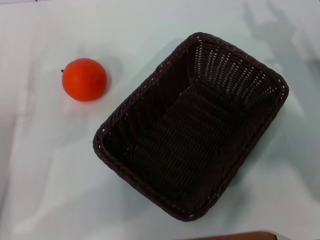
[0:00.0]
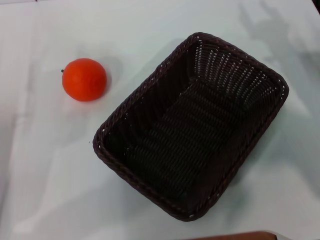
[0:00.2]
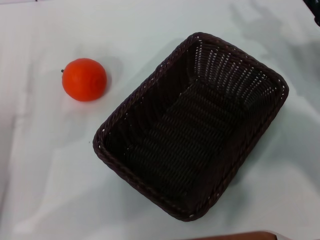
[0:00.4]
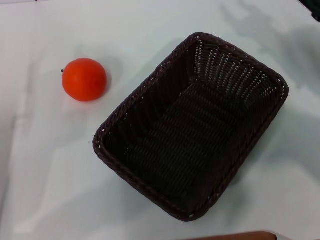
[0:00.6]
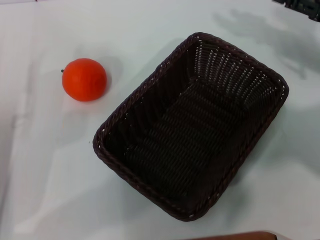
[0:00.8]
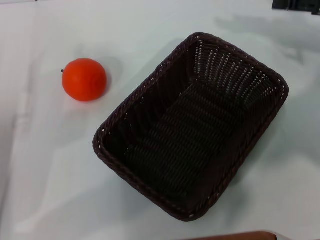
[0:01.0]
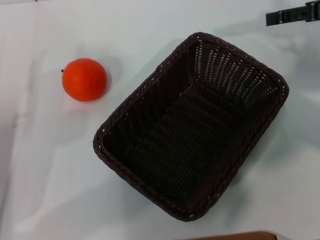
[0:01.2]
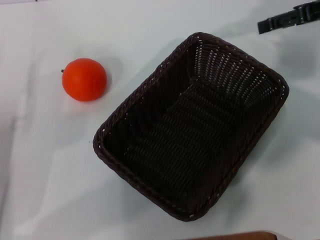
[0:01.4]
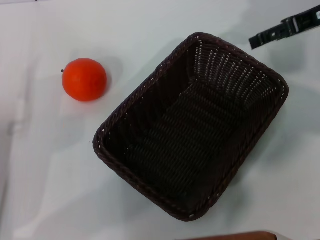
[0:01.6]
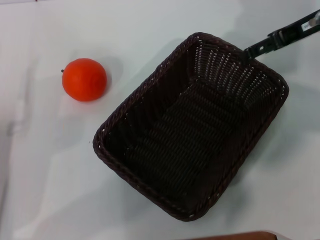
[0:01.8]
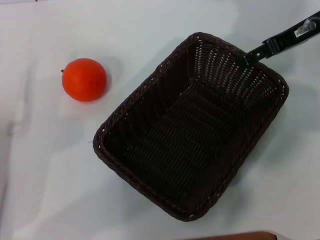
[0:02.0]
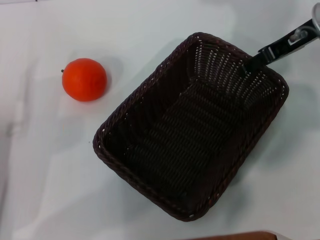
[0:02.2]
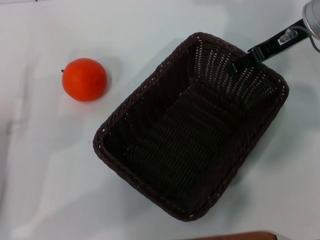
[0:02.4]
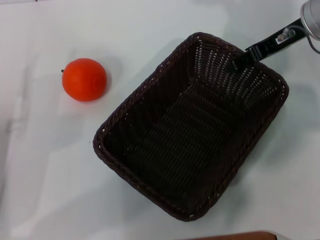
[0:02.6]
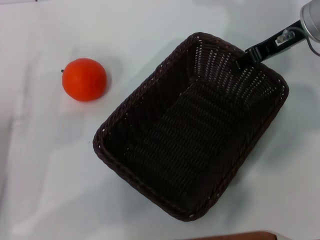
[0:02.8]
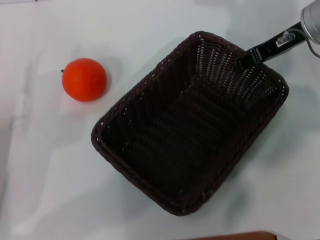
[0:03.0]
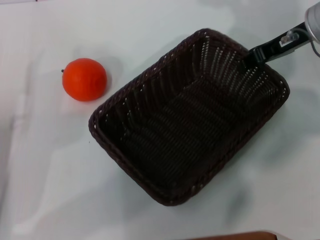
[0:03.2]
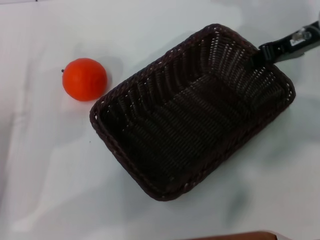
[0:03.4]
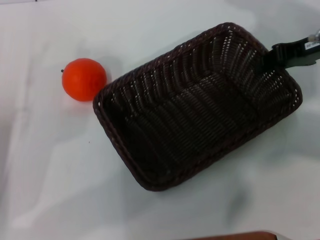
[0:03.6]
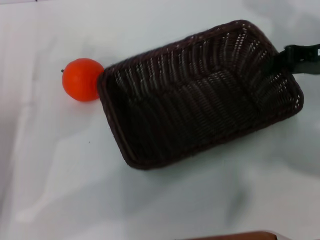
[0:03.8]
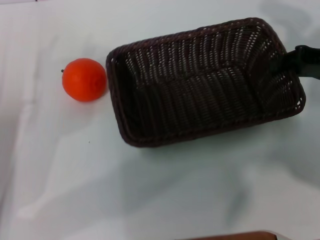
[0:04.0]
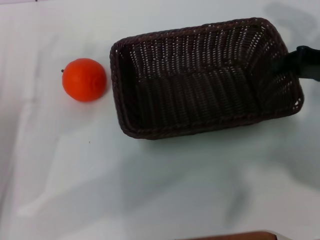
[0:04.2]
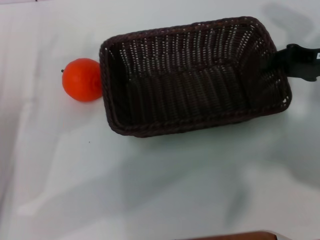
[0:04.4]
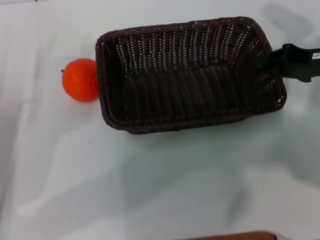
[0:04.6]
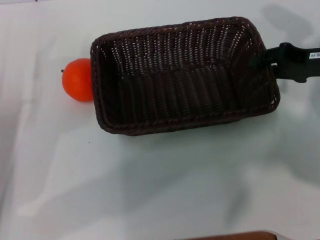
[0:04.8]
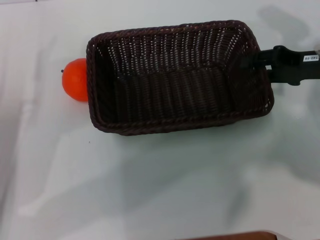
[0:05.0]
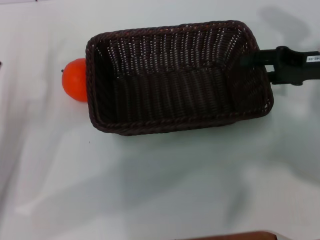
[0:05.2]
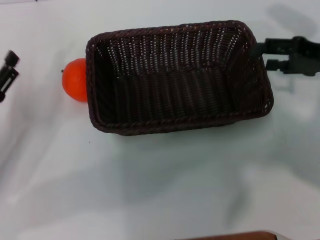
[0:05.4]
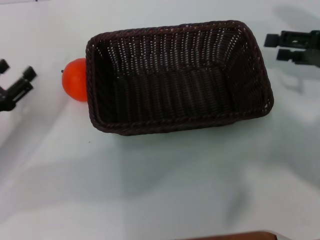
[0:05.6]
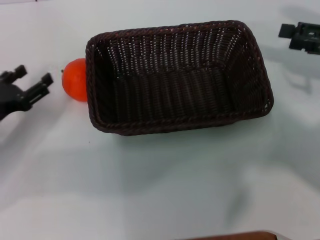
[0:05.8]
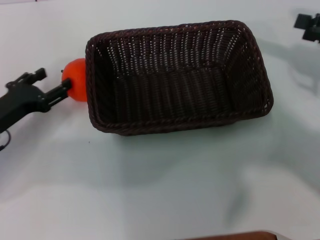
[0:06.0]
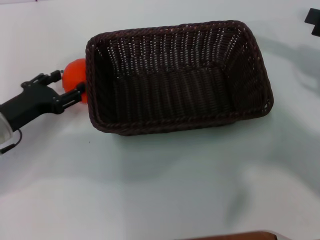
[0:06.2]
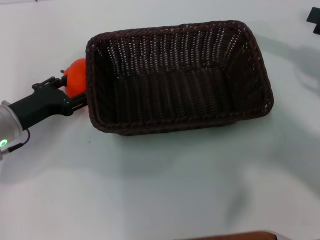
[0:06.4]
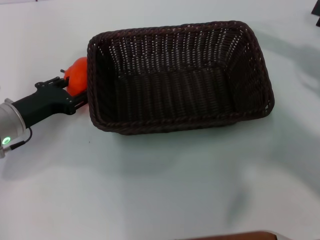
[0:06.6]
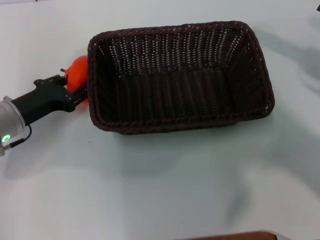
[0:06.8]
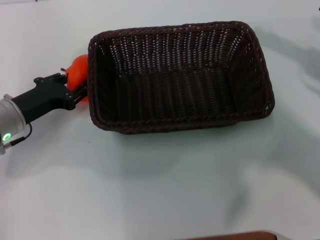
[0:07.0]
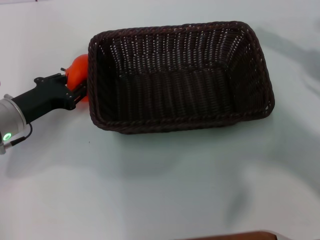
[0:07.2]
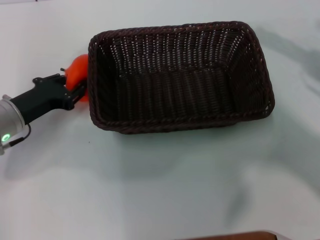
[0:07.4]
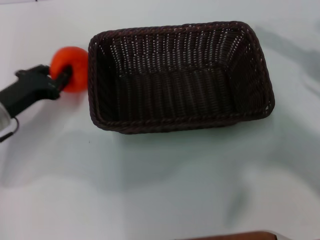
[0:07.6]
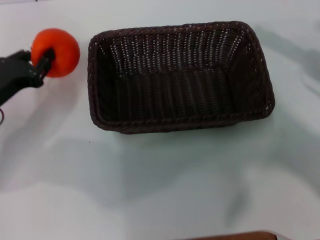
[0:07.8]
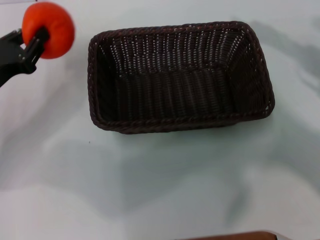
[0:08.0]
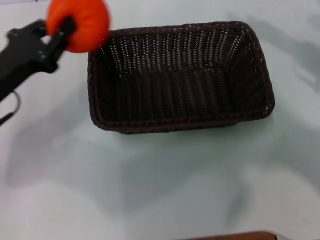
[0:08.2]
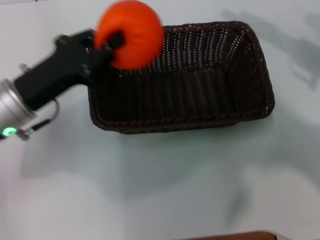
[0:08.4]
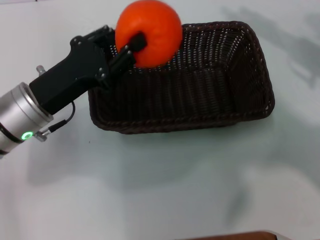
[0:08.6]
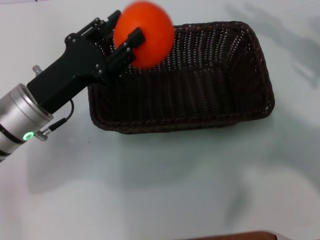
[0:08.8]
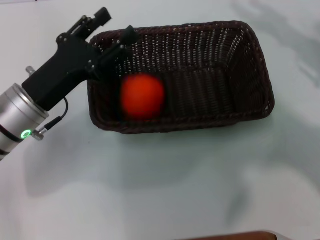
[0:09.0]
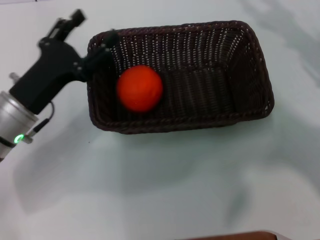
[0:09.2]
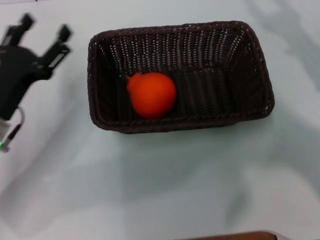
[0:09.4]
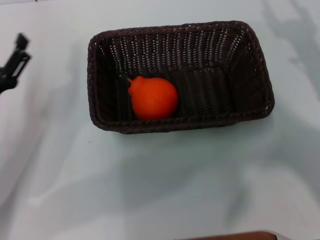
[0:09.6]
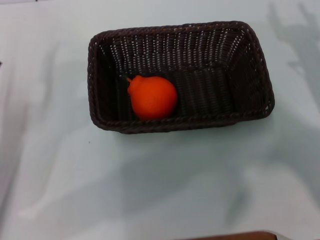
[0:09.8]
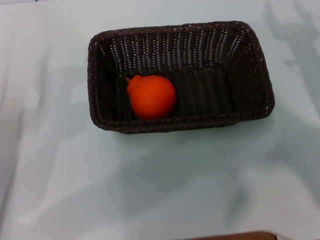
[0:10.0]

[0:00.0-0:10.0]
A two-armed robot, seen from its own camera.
Task of the whole recording: the right gripper pick up the black basket and place it horizontally in the middle of the table, the left gripper pick up the orange and place it into the black basket.
Step, 0:00.0 to 0:03.2: Pick up the dark basket with the right gripper.
Step, 0:03.6 to 0:05.2: Place the dark basket in the center of view with the right gripper.
Step, 0:05.4 to 0:07.6: Pick up the orange with the left gripper.
Step, 0:07.8 to 0:08.8: Place the orange into the dark basket with the left gripper.
0:00.0 to 0:01.4: The right gripper goes about 20 cm upward and forward.
0:01.4 to 0:02.8: The right gripper travels to the left by roughly 5 cm, and closes.
0:02.8 to 0:04.2: The right gripper heads to the right and backward, covering about 10 cm.
0:04.2 to 0:05.8: The right gripper opens its fingers.
0:05.8 to 0:07.2: The left gripper is displaced to the right by about 5 cm, and closes.
0:07.2 to 0:08.6: The left gripper goes approximately 10 cm to the right and upward.
0:08.6 to 0:10.0: The left gripper heads to the left, downward and backward, covering about 15 cm, and opens its fingers, while the right gripper travels downward by about 10 cm.

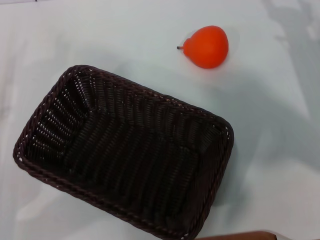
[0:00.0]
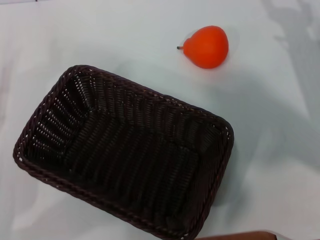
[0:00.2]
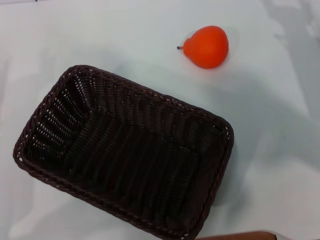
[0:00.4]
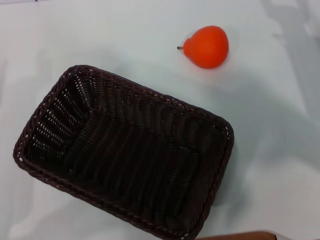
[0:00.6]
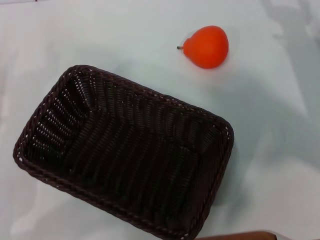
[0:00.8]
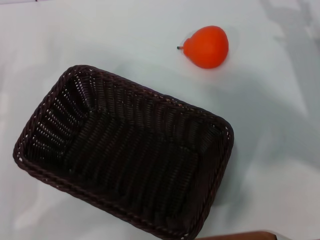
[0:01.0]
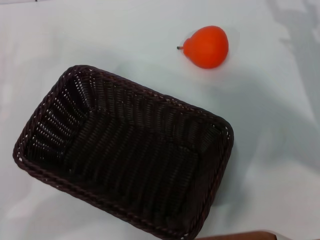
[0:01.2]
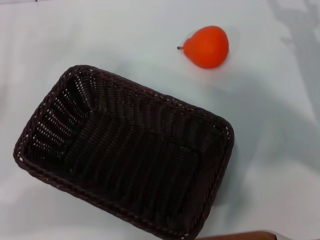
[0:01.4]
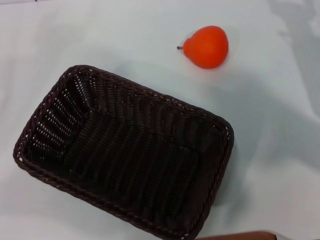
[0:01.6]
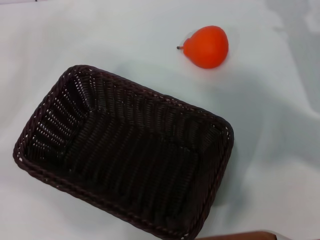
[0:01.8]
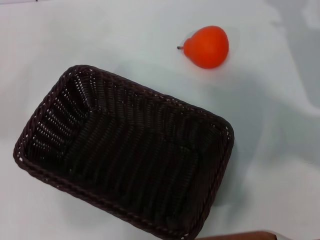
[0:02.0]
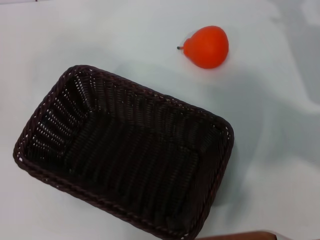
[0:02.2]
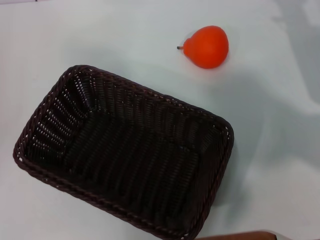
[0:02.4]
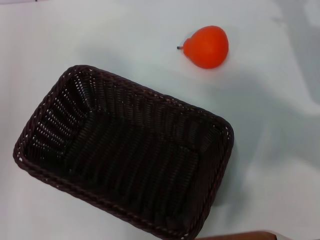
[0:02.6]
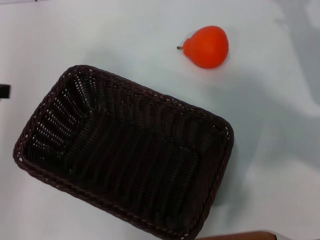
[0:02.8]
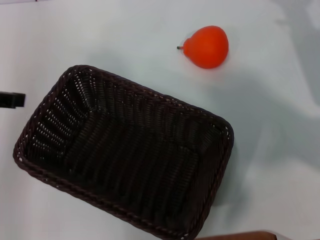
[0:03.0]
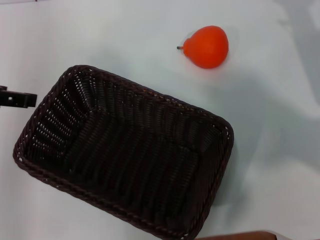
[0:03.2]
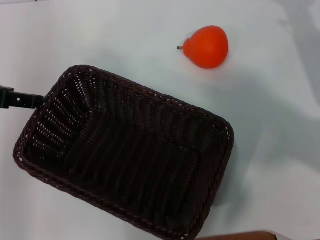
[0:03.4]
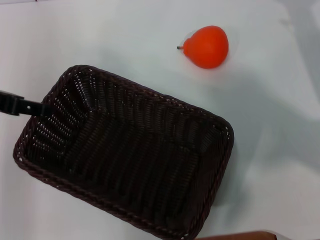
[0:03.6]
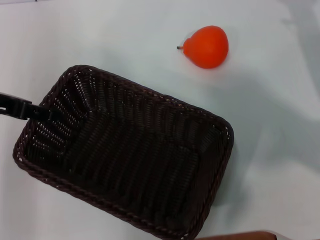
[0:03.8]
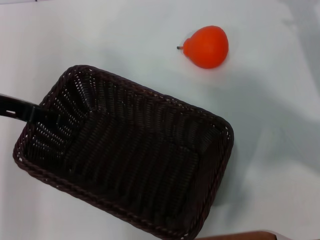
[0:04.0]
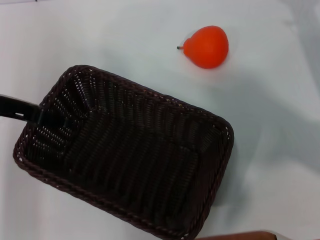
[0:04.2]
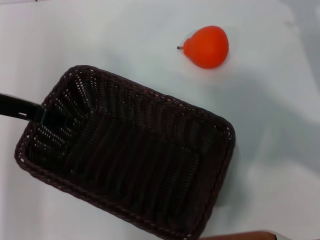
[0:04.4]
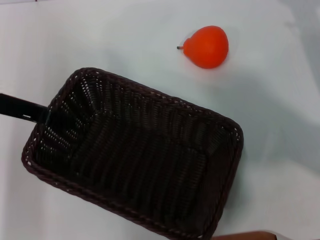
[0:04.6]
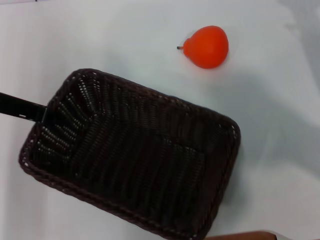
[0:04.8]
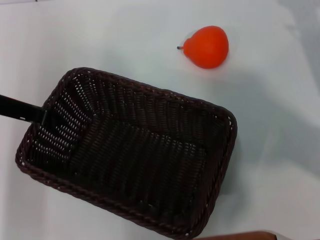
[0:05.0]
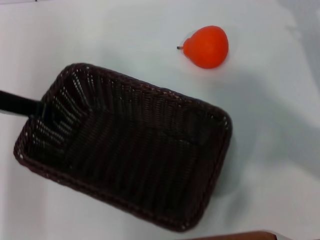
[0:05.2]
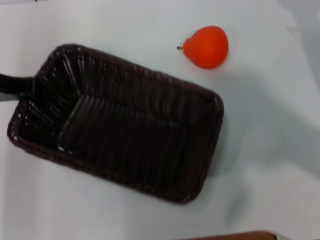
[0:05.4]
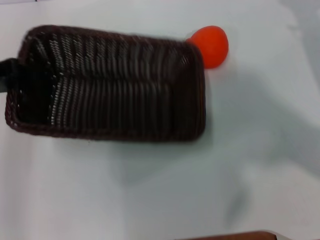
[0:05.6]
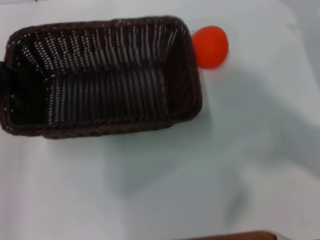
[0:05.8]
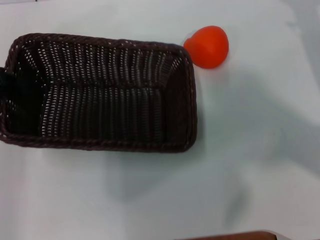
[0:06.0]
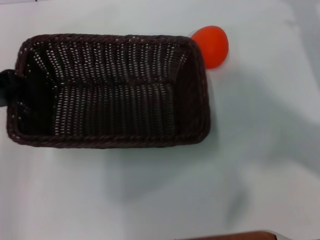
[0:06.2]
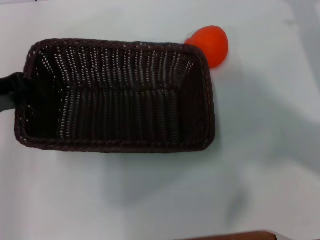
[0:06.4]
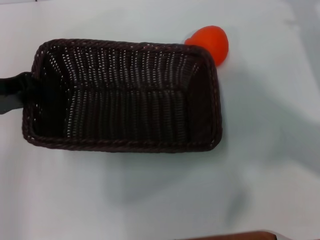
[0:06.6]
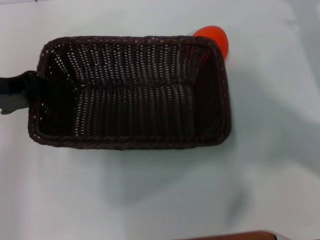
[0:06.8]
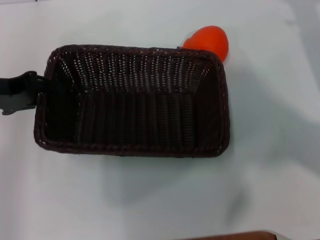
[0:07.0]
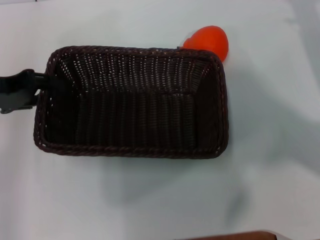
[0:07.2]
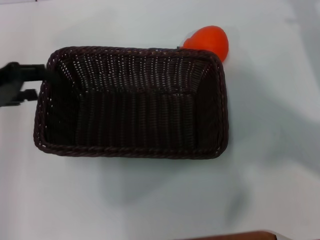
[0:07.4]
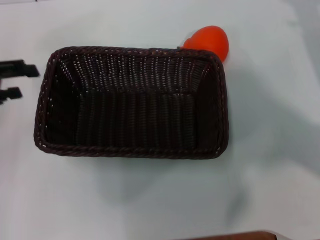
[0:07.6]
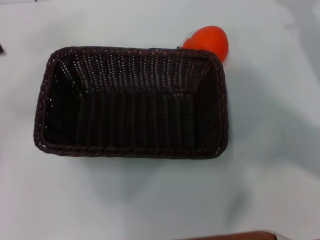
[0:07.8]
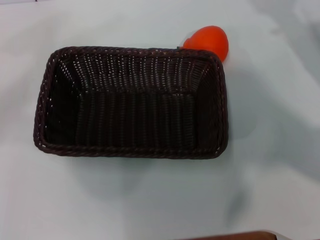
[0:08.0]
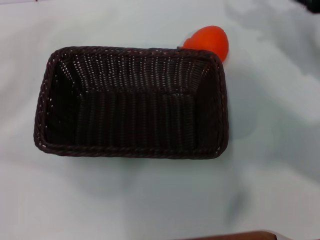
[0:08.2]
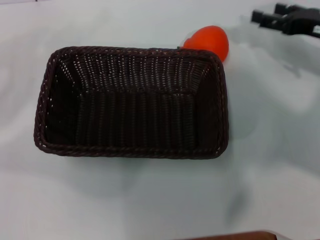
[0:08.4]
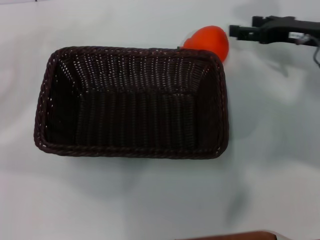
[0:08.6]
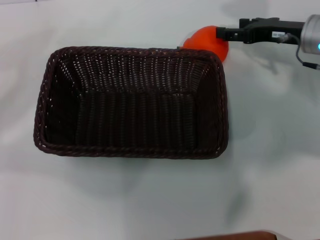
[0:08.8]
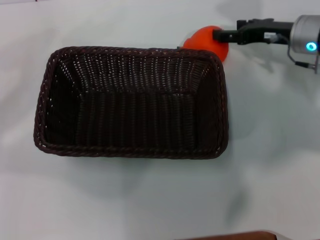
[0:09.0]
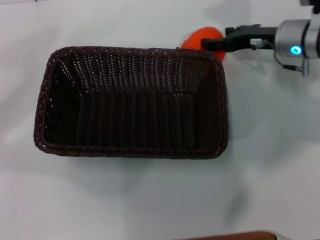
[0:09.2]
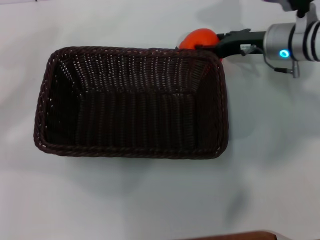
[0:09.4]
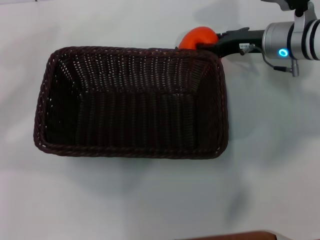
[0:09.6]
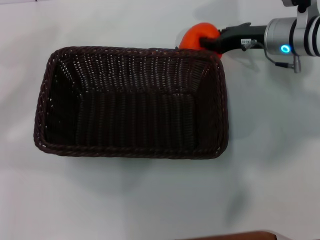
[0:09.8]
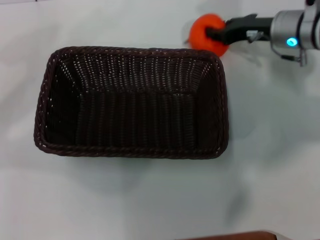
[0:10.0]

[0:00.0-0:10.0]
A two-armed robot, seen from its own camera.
Task of the whole recording: the left gripper pick up the black basket and place it horizontally in the middle of the table, the right gripper pick up the orange and place it into the black basket.
Step, 0:00.0 to 0:05.2: Pick up the dark basket with the left gripper.
Step, 0:05.4 to 0:07.4: Place the dark basket in the center of view with the left gripper.
0:01.4 to 0:02.8: The left gripper is displaced upward by some 20 cm.
0:02.8 to 0:04.2: The left gripper heads downward and to the right, covering about 10 cm.
0:04.2 to 0:05.8: The left gripper goes approximately 5 cm to the left, and closes up.
0:07.2 to 0:08.6: The right gripper heads to the left, covering some 5 cm. The left gripper shifts approximately 15 cm to the left, and opens up.
0:08.6 to 0:10.0: The right gripper shifts about 5 cm to the left, and closes its fingers.

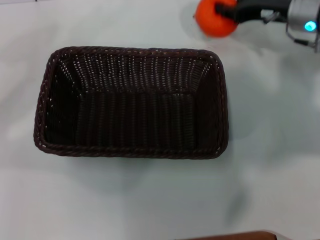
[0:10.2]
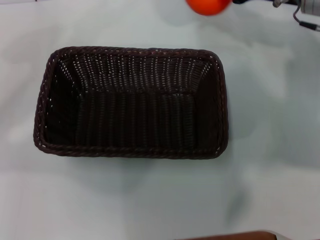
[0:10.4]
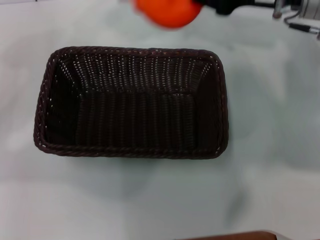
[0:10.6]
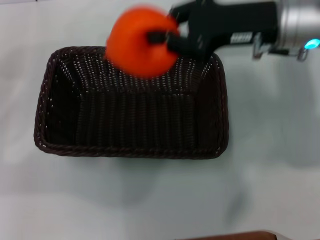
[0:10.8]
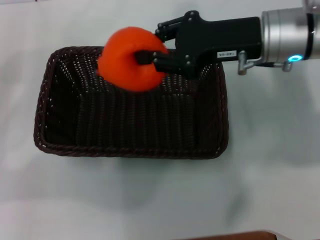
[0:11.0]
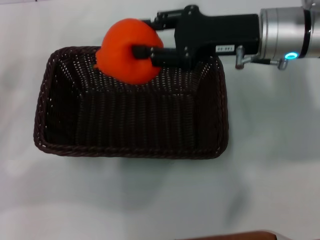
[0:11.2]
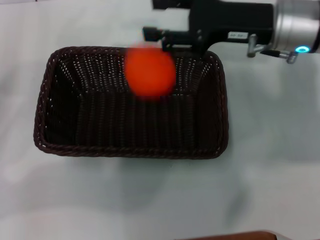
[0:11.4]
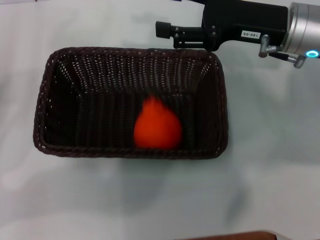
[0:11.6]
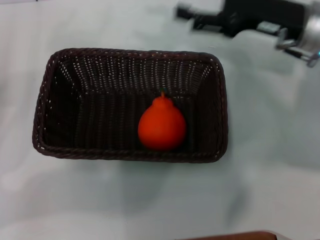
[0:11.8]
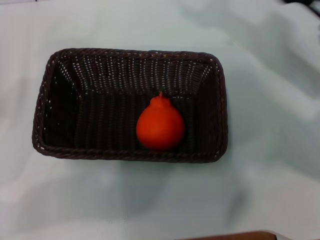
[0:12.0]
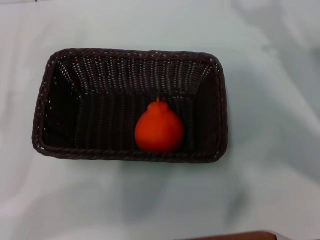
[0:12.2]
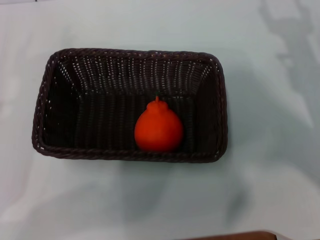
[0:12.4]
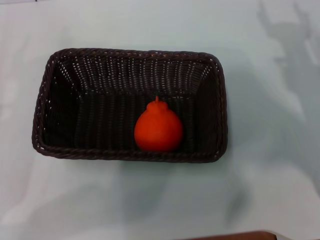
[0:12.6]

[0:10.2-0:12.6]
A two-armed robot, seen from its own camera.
Task of the whole recording: the left gripper pick up the black basket and place it horizontally in the middle of the table, the right gripper pick up the orange and place it into the black basket.
Step, 0:10.2 to 0:11.2: Place the orange into the dark basket with the right gripper.
0:10.2 to 0:11.4: The right gripper shifts roughly 10 cm backward and to the left, and opens its fingers. Meanwhile the left gripper travels downward by approximately 5 cm.
0:11.4 to 0:12.6: The right gripper is displaced to the right, downward and backward by some 15 cm, and opens up. Meanwhile the left gripper ends up approximately 5 cm from where it was.
